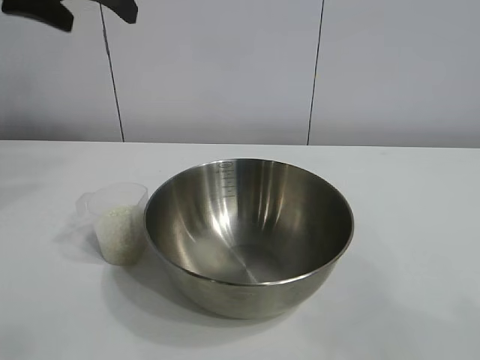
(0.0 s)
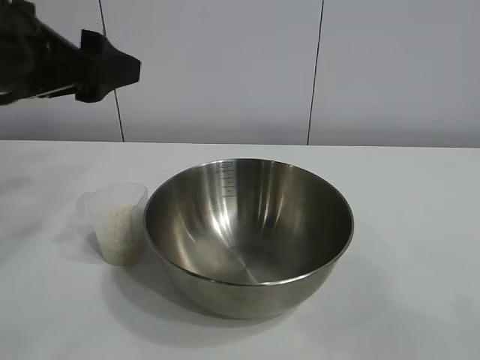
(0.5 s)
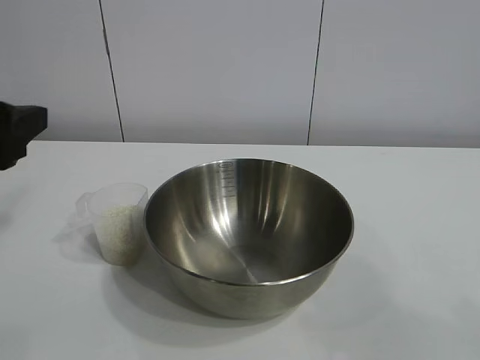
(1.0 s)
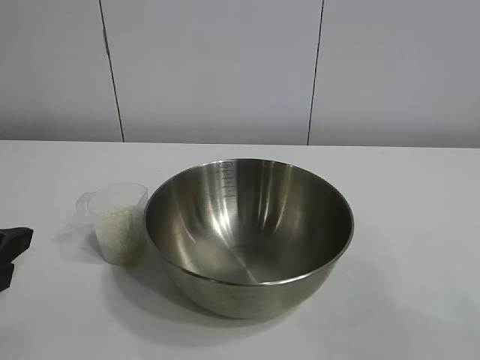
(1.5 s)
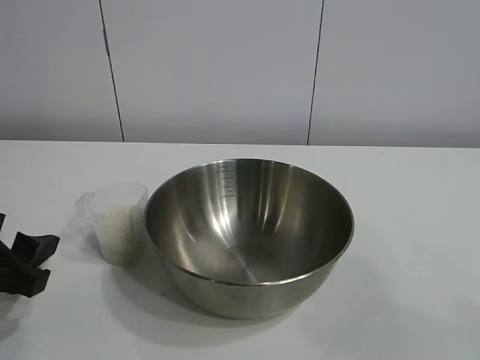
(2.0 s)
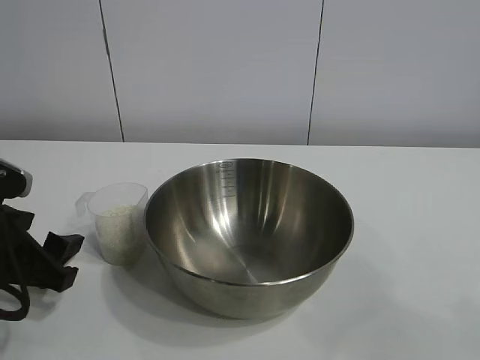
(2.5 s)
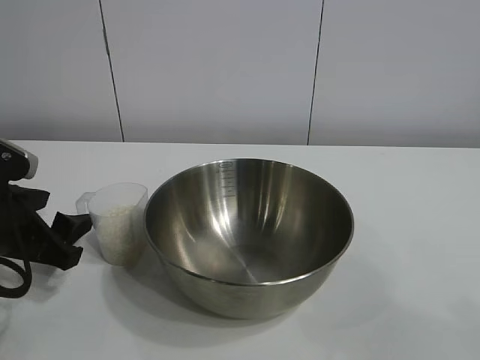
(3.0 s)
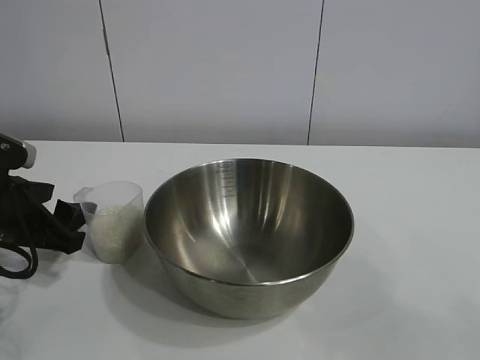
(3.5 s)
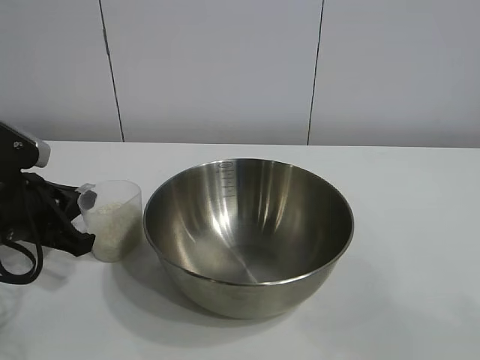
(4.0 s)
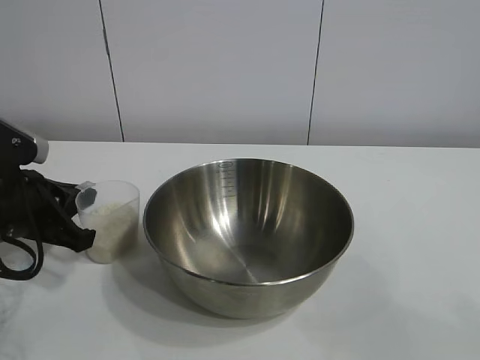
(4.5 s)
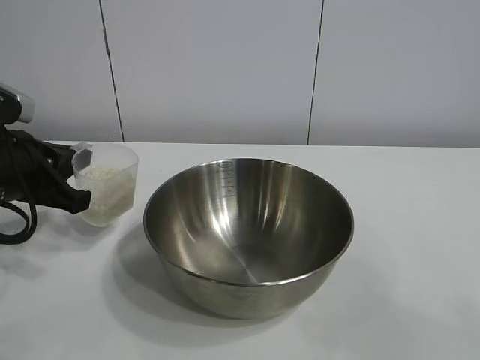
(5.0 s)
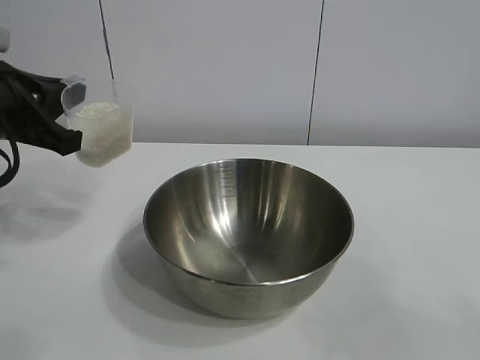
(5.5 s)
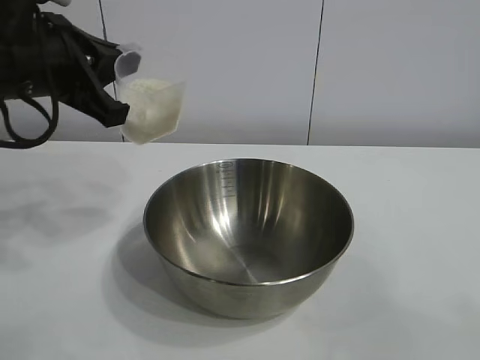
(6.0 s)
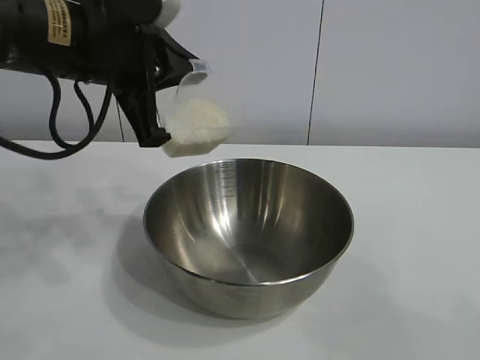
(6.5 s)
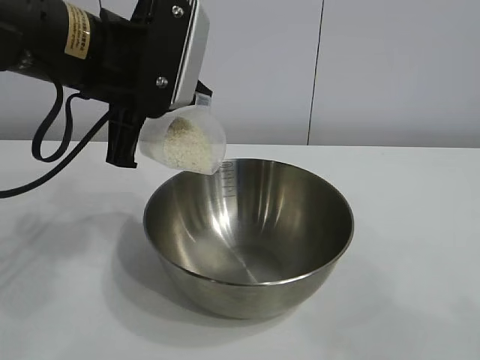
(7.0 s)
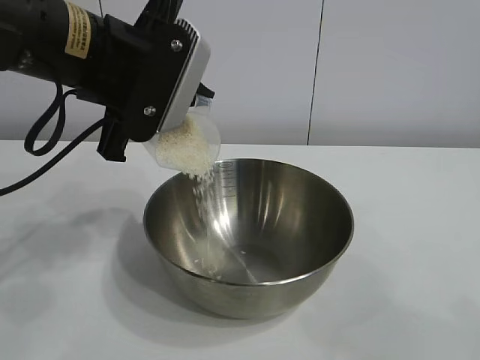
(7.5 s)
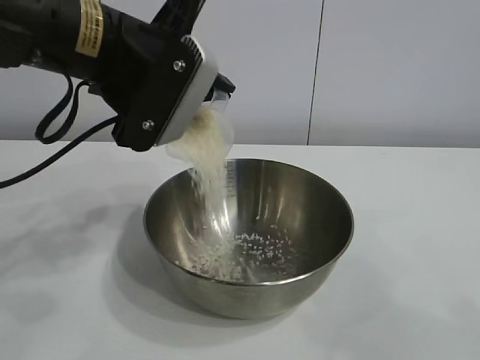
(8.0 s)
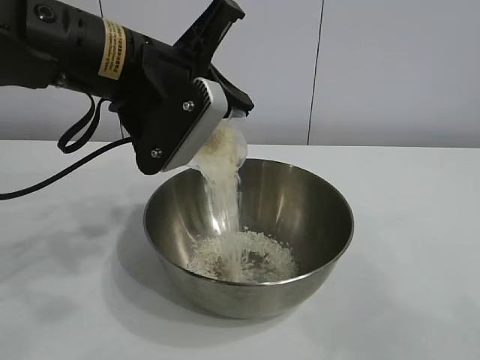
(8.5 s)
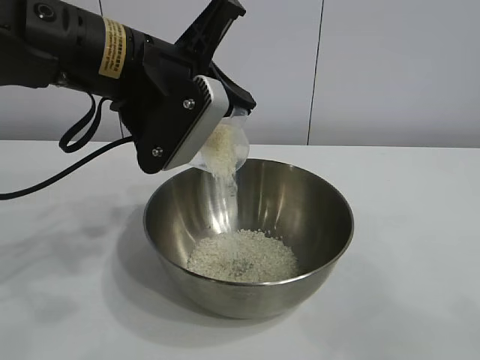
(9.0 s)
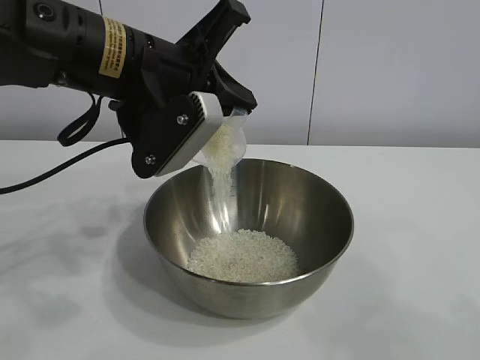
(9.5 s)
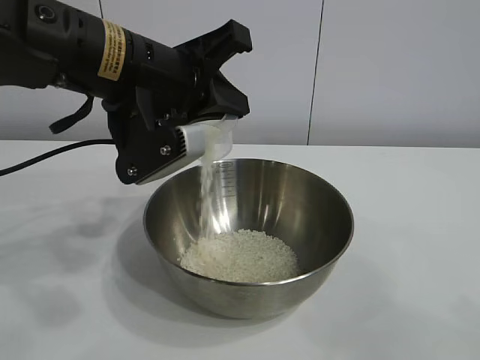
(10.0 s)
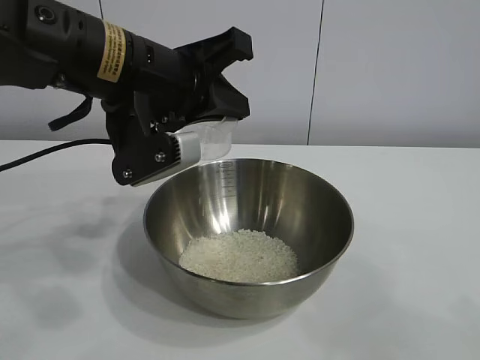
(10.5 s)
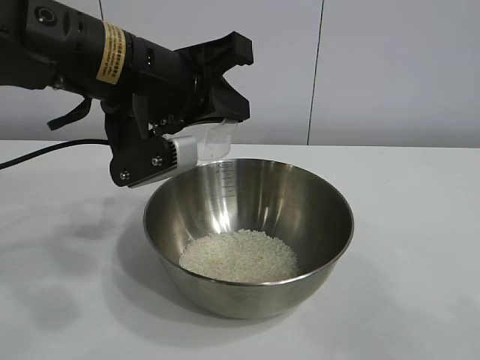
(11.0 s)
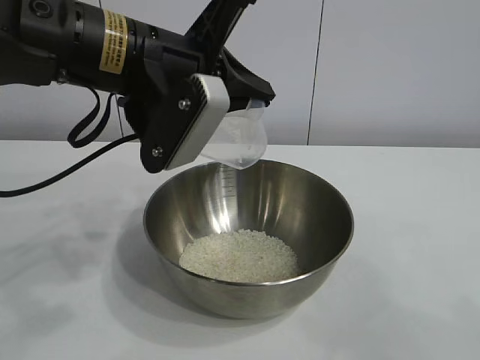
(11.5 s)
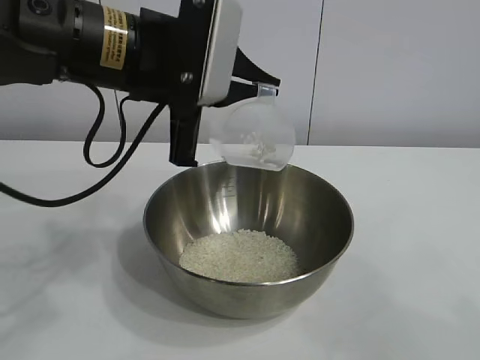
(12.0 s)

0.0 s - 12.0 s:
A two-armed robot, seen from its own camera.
Task of the whole recording: the right gripper grasp the rice container and place it in the center of the table, the left gripper grasp the rice scoop and pour the rice into the rice container.
Step, 0.0 s - 4.0 s: Grasp the cup with rice in it with left gripper.
Step, 4.5 s - 11.0 s: Pour the rice from the cup into the bowl with the left gripper.

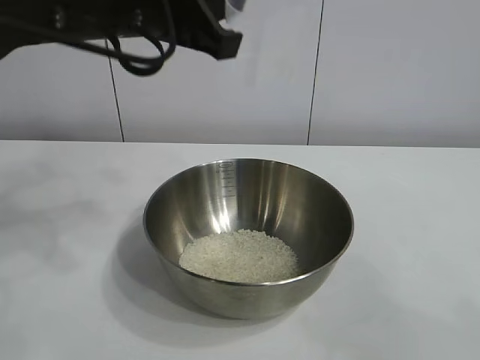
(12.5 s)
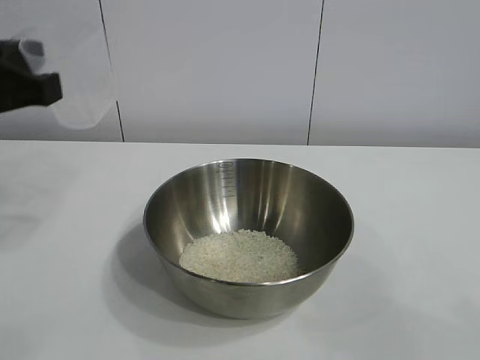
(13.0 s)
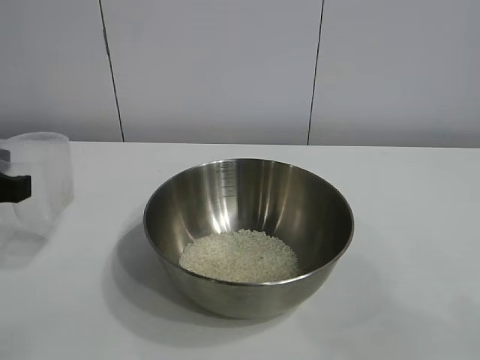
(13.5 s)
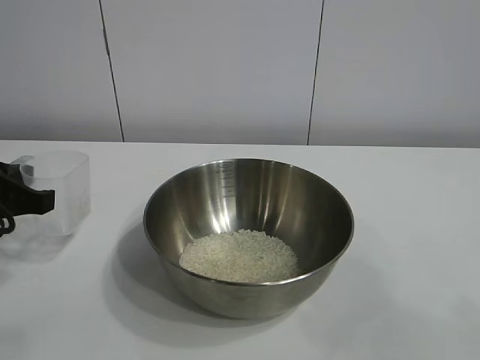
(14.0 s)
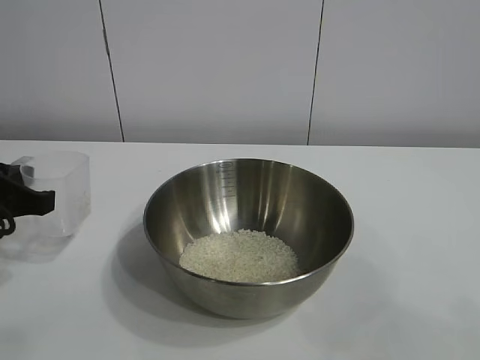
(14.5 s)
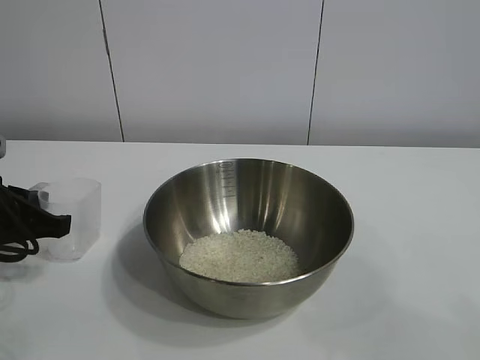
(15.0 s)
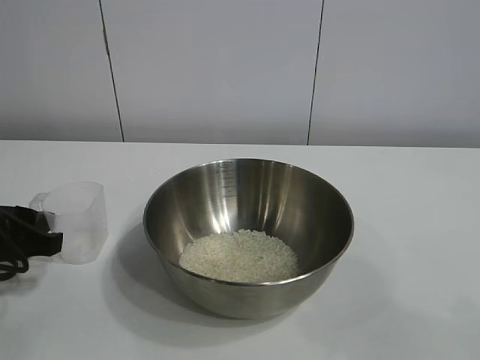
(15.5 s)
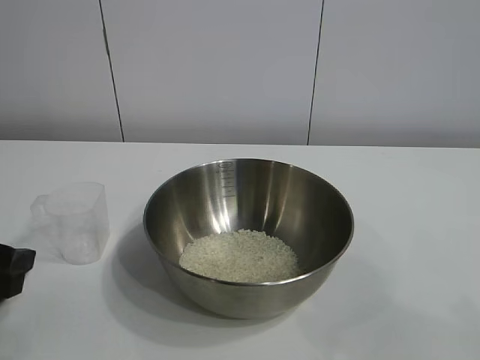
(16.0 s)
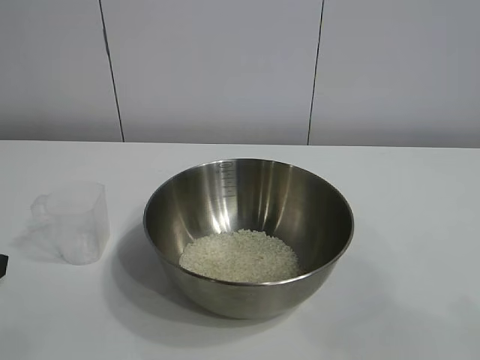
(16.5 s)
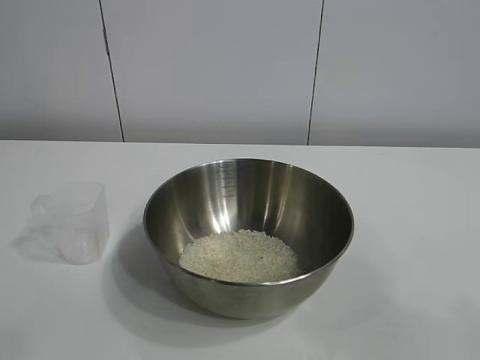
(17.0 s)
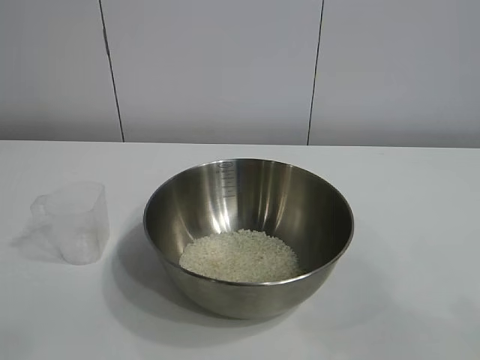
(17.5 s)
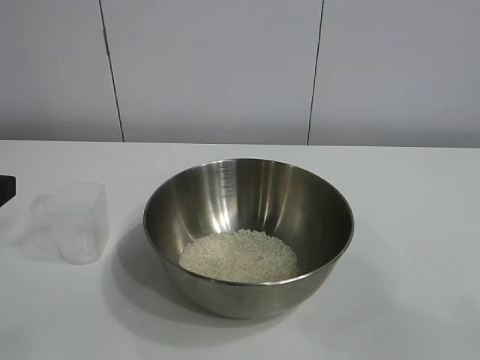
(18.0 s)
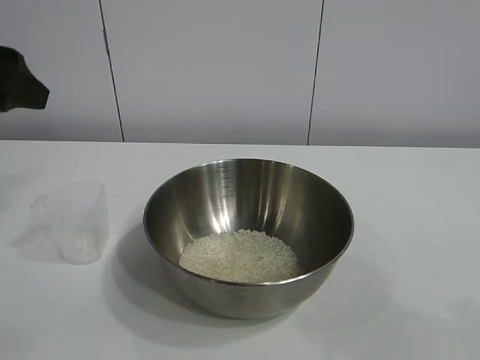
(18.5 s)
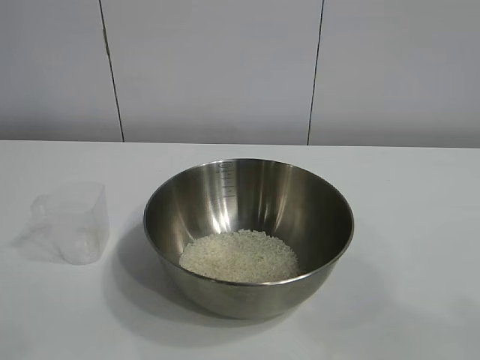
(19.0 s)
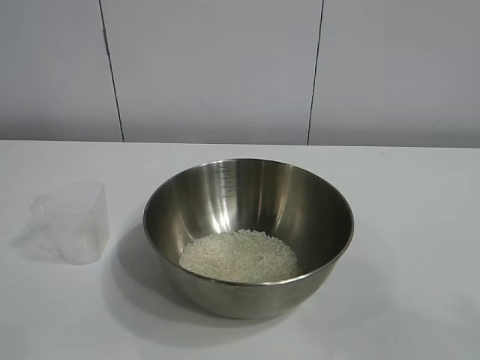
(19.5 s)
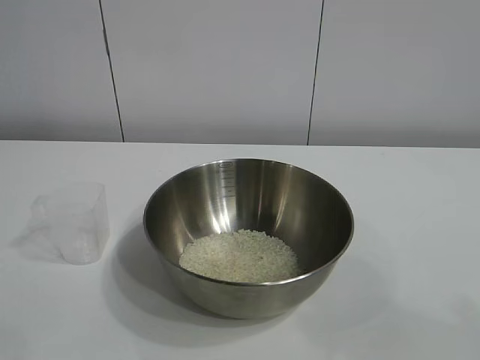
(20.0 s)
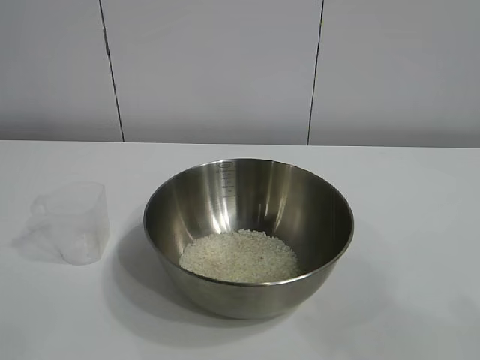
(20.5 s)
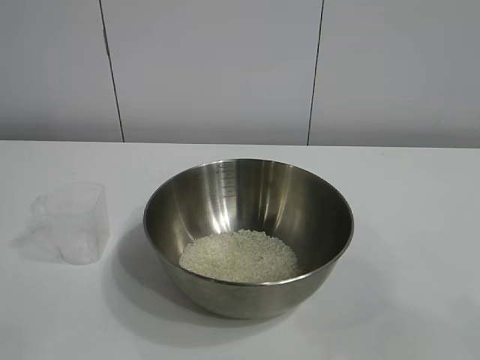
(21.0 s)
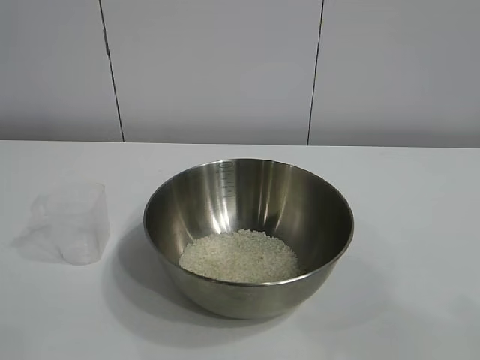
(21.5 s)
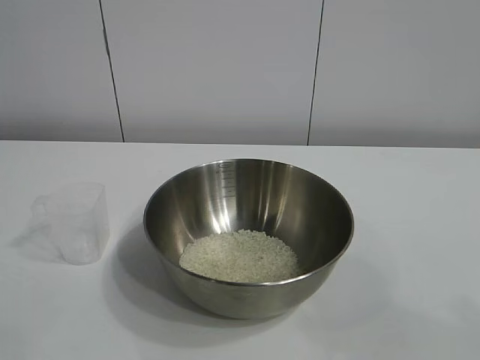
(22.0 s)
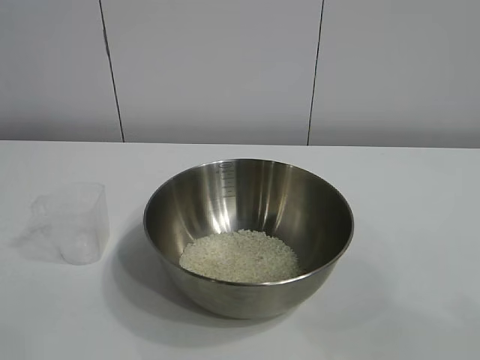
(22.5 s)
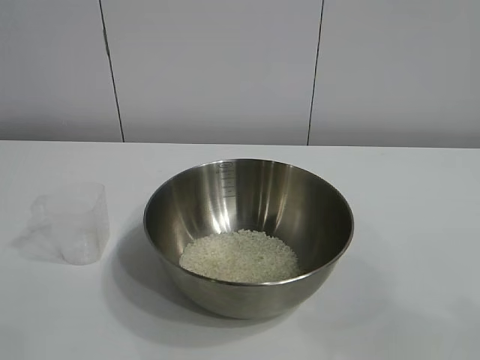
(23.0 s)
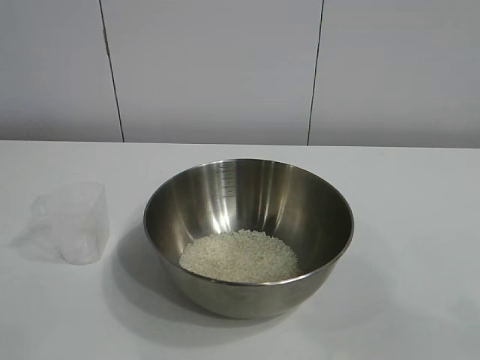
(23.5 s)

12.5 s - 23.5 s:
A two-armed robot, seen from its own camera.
Task of the whole recording: the right gripper grasp the rice container and place it in the center of the table, the left gripper grasp the rice scoop and pour the rice into the rice container.
Step, 12.5 s - 15.5 s: Place the cup on the table with the left gripper.

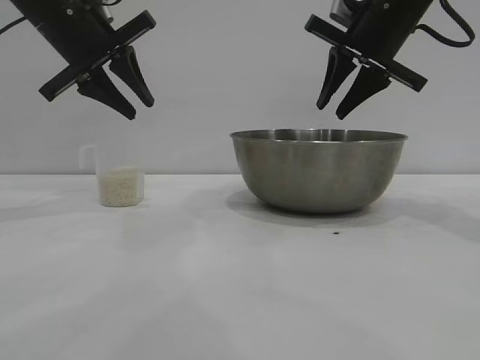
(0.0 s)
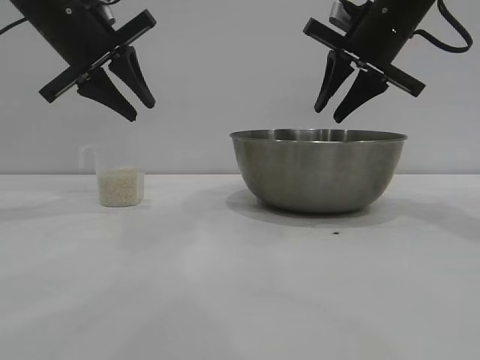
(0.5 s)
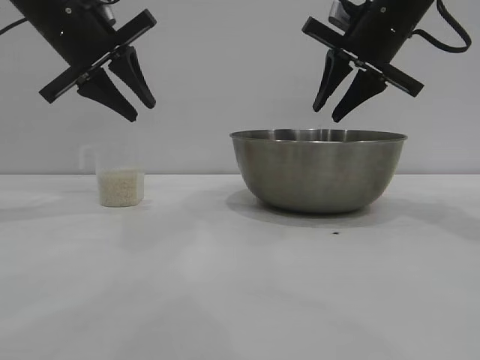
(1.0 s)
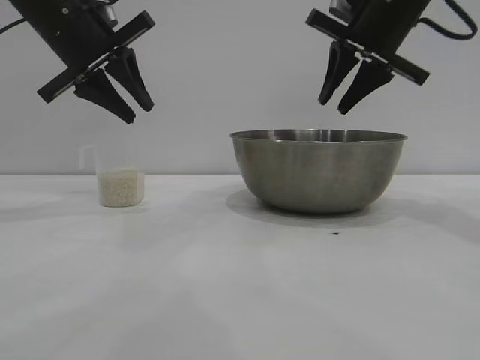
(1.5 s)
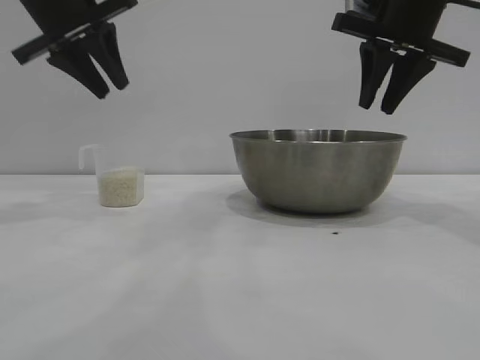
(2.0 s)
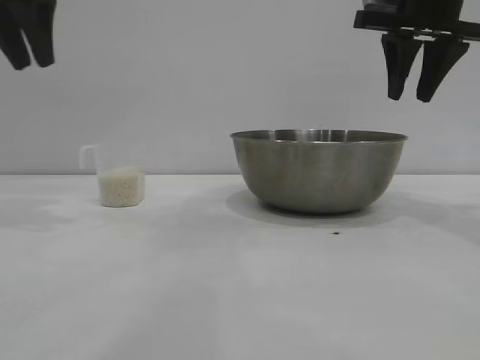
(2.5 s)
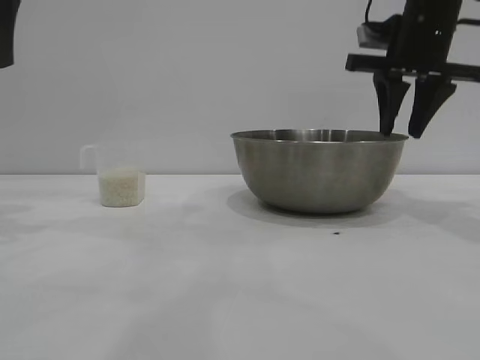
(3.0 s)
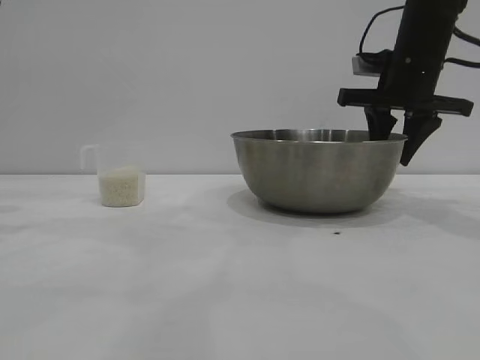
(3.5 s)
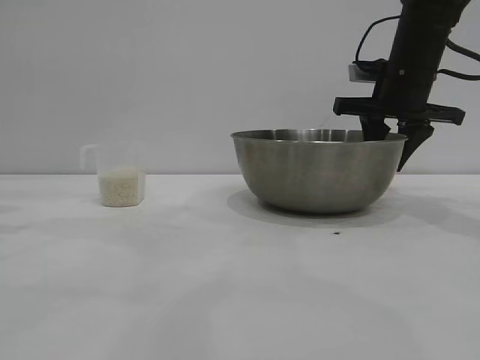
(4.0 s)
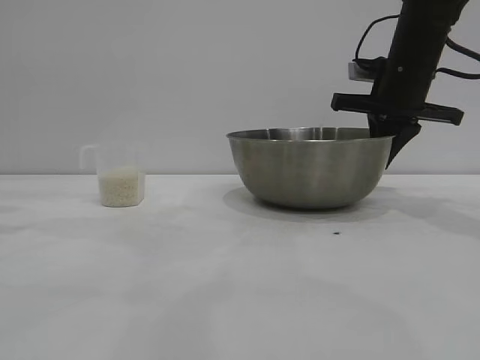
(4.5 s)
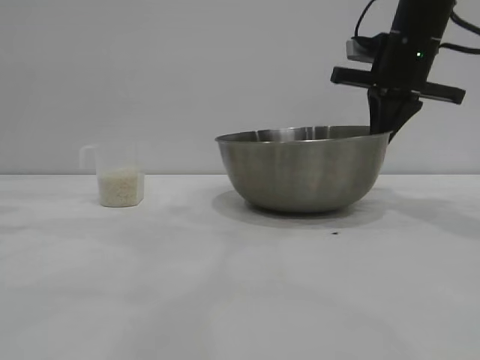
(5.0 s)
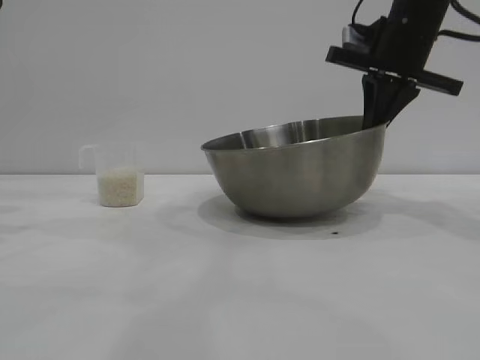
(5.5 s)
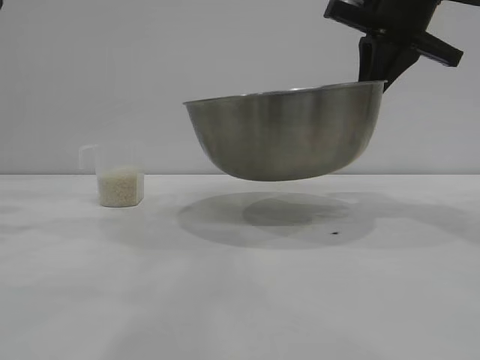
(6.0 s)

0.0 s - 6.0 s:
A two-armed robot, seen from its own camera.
Task of the whole recording: the right gripper grasp the rice container and place it in the center of the table, the left gripper grasp the rice scoop and pour the rice into the rice container.
Step, 0.0 s - 5.5 s: Pick up the bowl with the right gripper.
